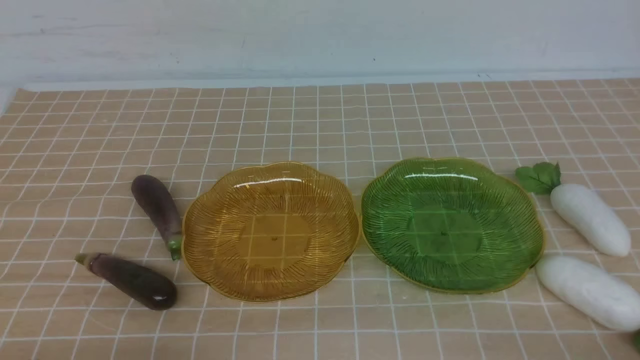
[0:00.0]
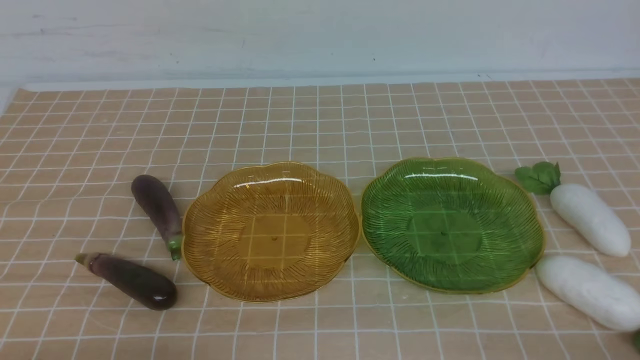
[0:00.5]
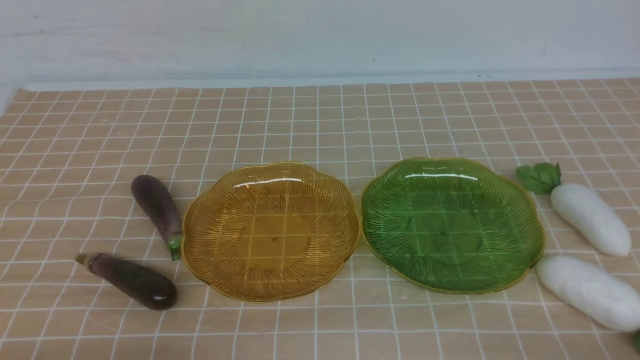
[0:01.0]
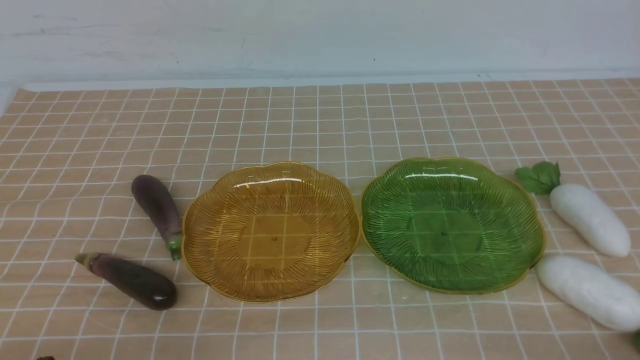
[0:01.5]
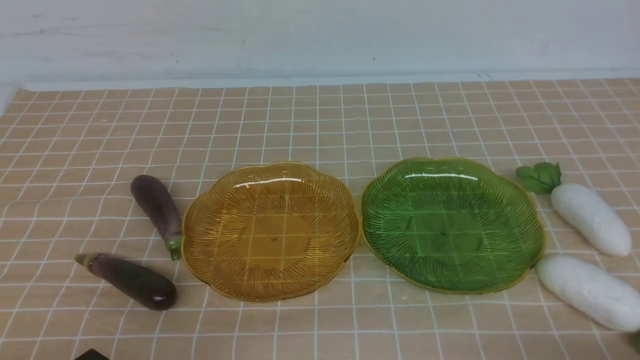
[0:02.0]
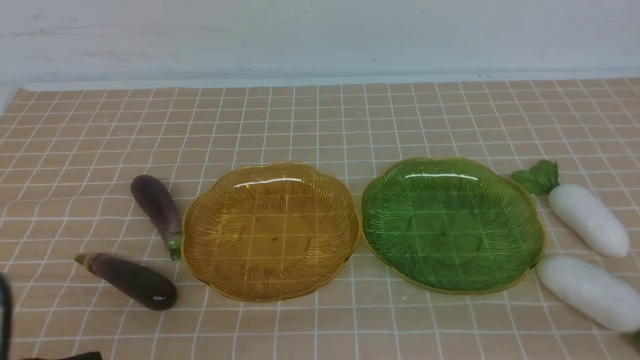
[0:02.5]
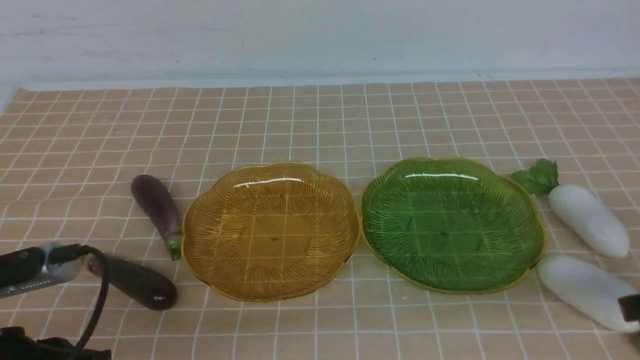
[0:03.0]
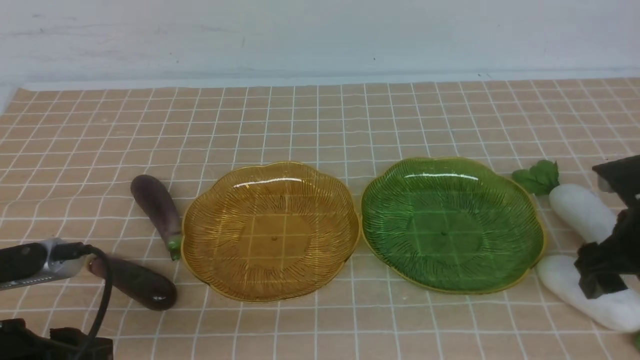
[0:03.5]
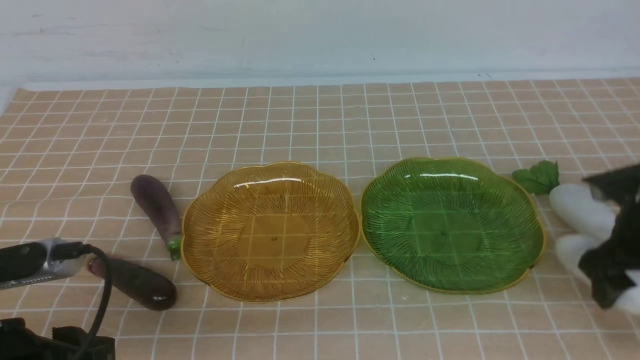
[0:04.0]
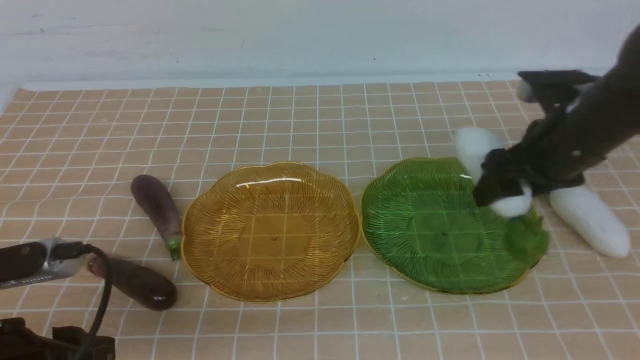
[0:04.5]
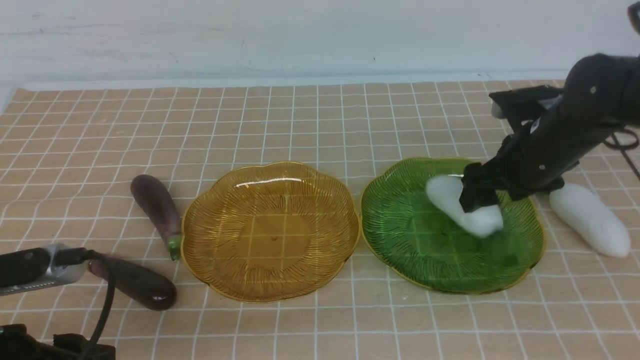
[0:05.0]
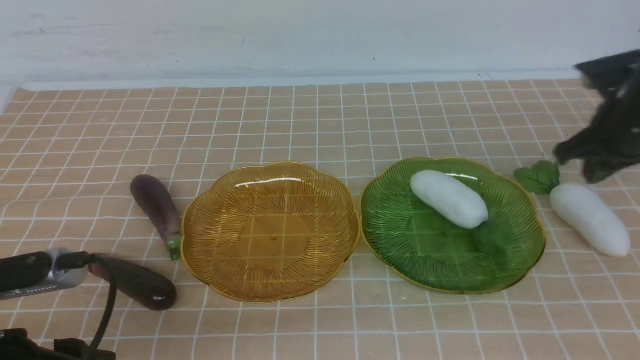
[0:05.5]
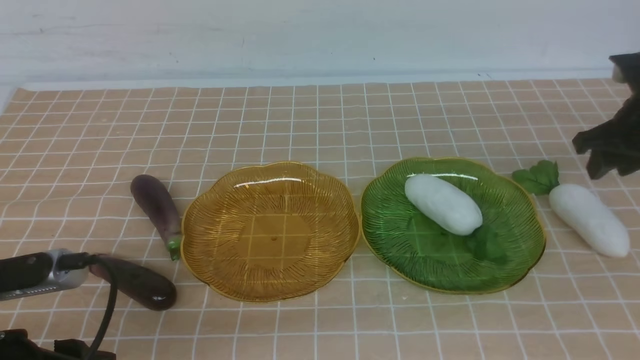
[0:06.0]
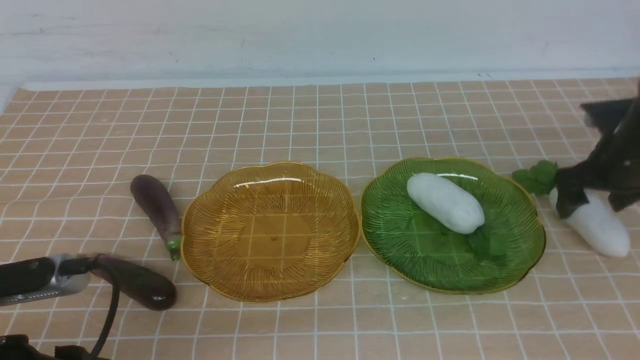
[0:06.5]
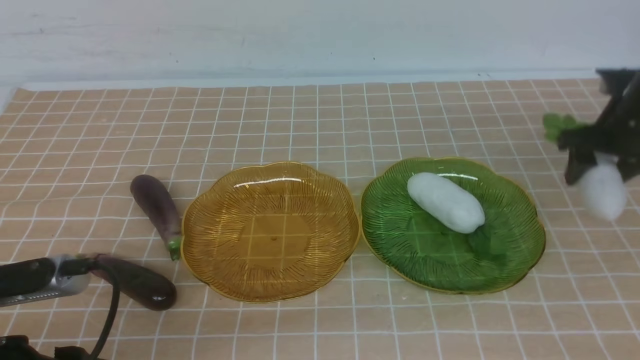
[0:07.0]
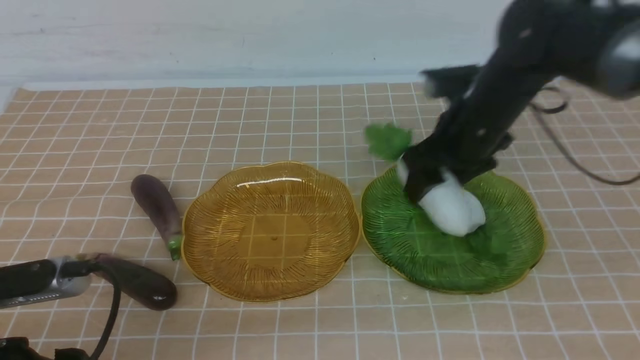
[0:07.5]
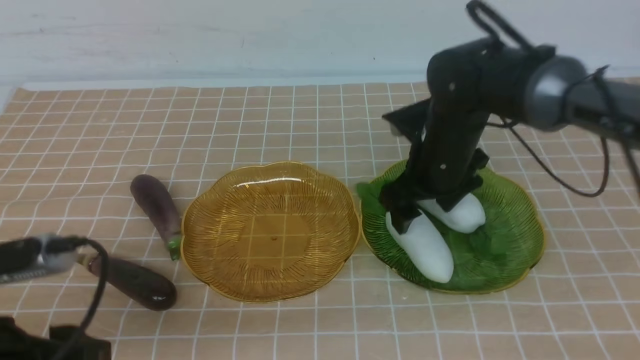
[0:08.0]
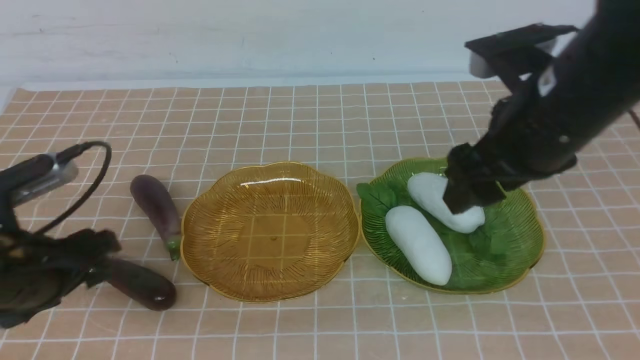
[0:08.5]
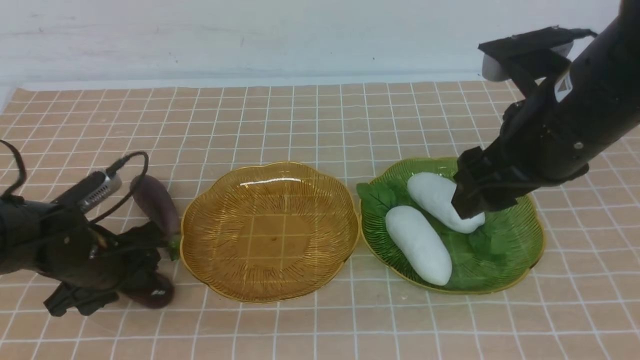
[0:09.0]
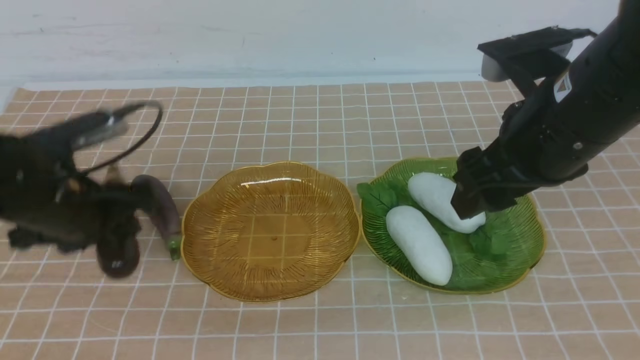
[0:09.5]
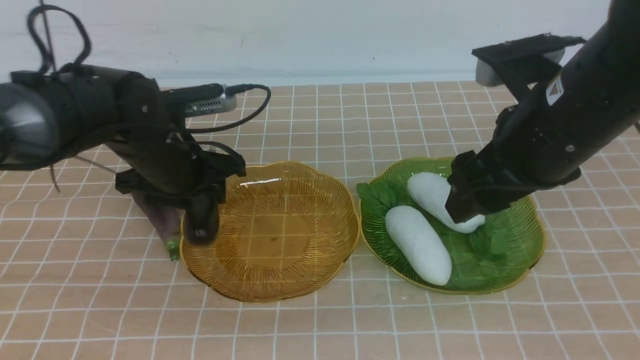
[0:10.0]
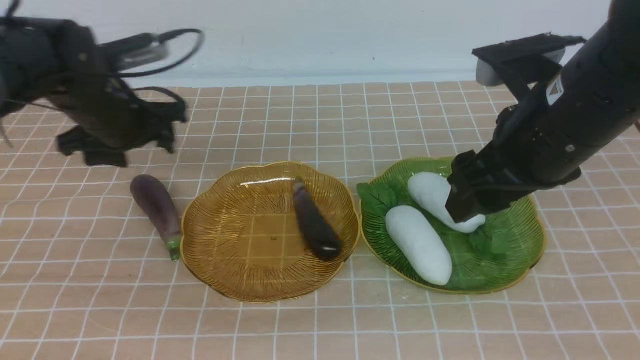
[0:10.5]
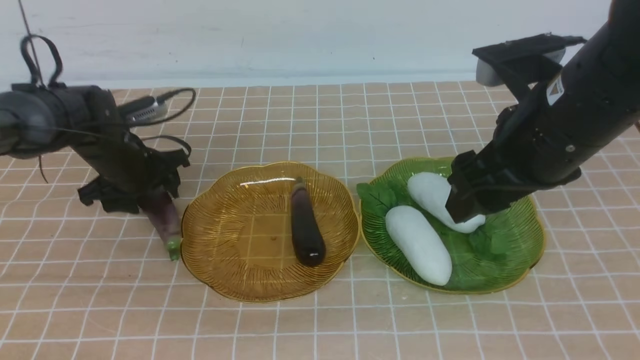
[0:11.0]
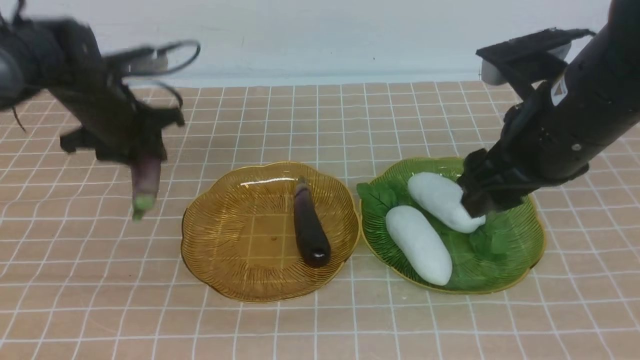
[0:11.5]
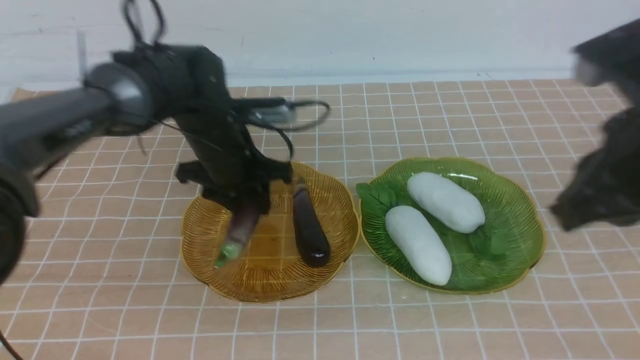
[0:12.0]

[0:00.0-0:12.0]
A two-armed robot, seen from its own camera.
Step, 0:00.0 to 0:08.0: use the right arm to grab a radish and put it into the right plate.
Step, 0:08.5 to 0:10.0: use the left arm to grab an eggplant and put it into the left plate.
0:02.0 to 0:04.0: The right gripper heads forward, covering some 25 cm, and opens, while the left gripper is displaced forward and upward by approximately 10 cm, and opens its fingers.
0:04.0 to 0:06.0: The right gripper is displaced forward by roughly 10 cm, reaches about 10 cm to the left, then returns, and closes up.
0:06.0 to 0:08.0: The right gripper is displaced to the left by some 20 cm, and opens its fingers.
0:08.0 to 0:10.0: The left gripper goes roughly 25 cm forward; the right gripper is displaced backward and upward by roughly 15 cm.
0:10.0 to 0:12.0: The right gripper is displaced backward by about 5 cm, and closes its fingers. Meanwhile the left gripper travels to the right by about 5 cm, and closes its fingers.

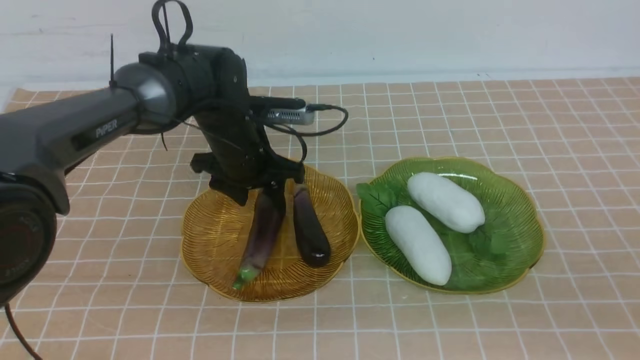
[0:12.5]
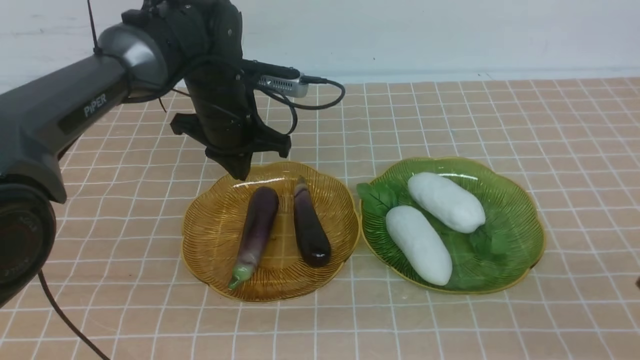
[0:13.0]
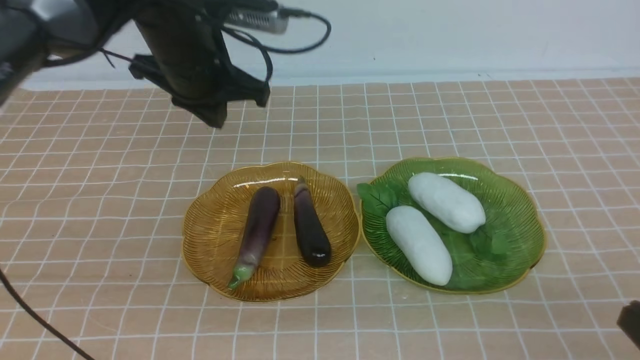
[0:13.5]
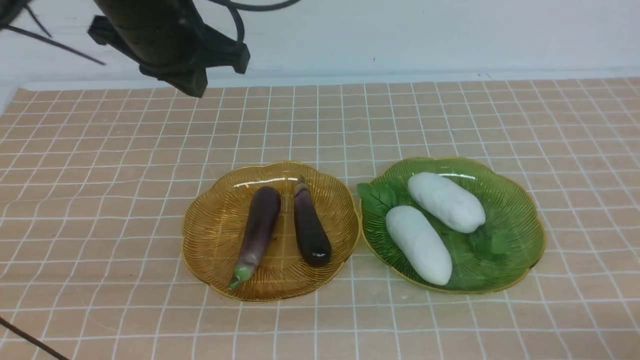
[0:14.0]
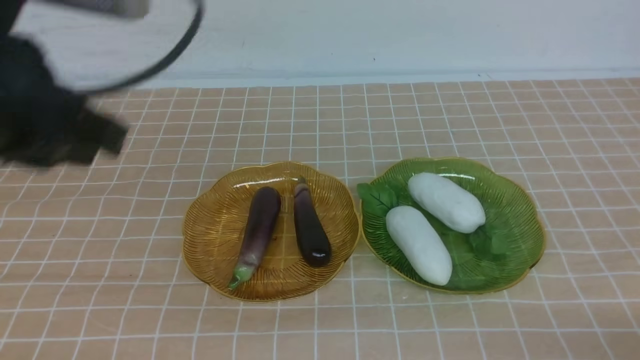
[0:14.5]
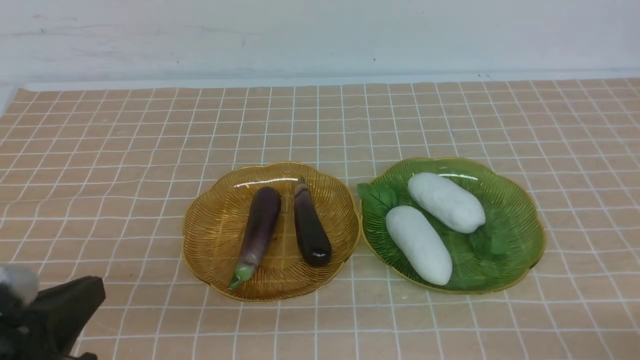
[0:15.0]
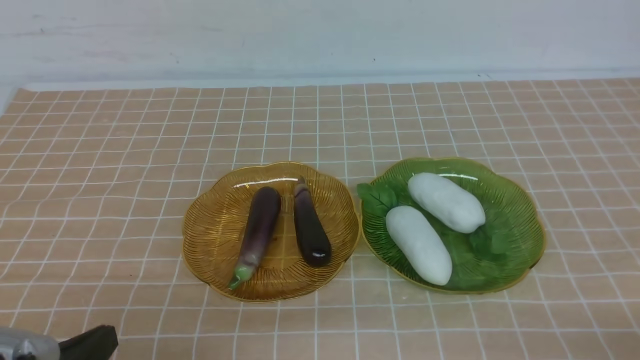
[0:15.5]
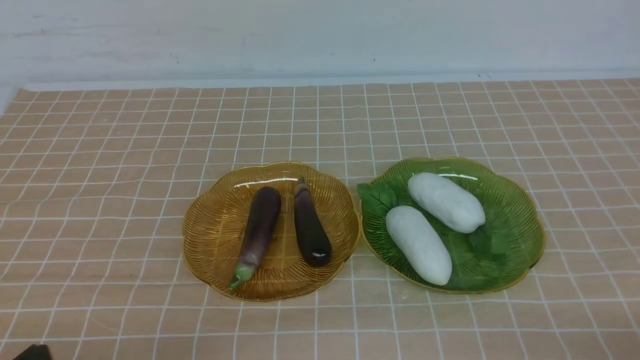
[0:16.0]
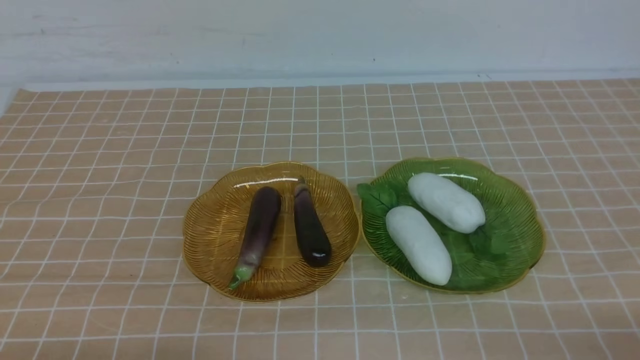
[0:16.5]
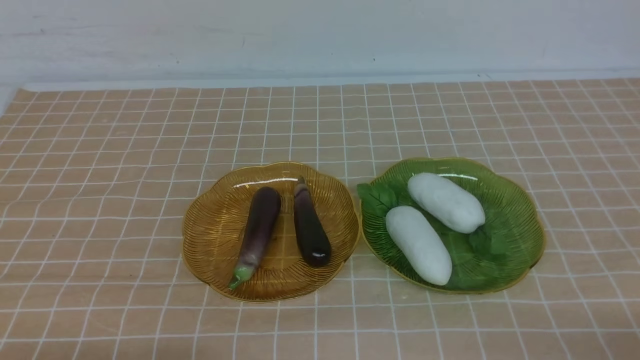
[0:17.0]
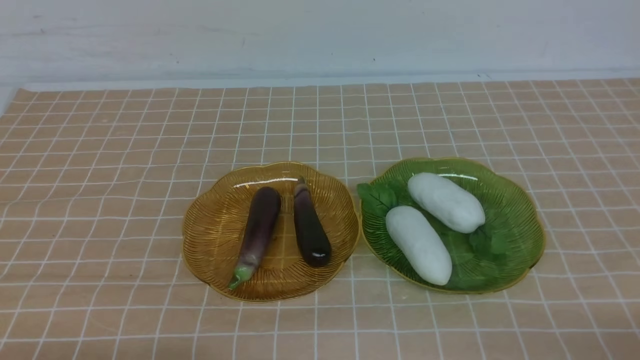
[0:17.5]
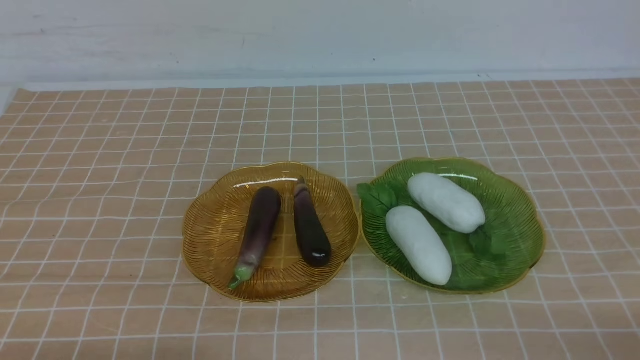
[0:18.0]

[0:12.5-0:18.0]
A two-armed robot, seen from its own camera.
0:12.5 to 0:14.5: The right gripper goes roughly 20 cm downward. Meanwhile the left gripper moves backward and upward, roughly 30 cm, and closes up.
0:14.5 to 0:16.0: The left gripper heads downward and backward, covering approximately 20 cm.
0:16.0 to 0:18.0: The two grippers keep their place.
